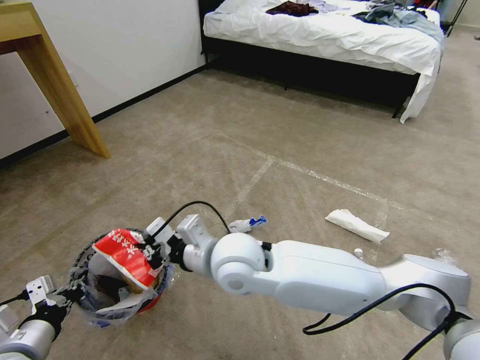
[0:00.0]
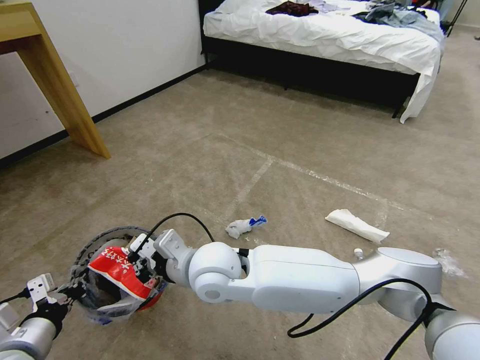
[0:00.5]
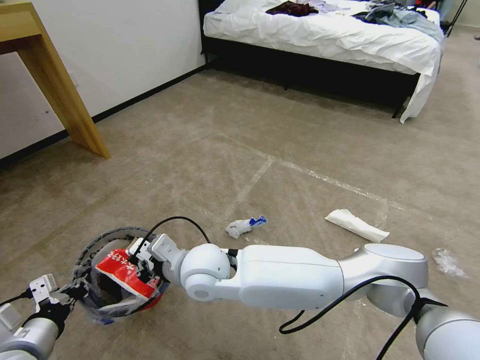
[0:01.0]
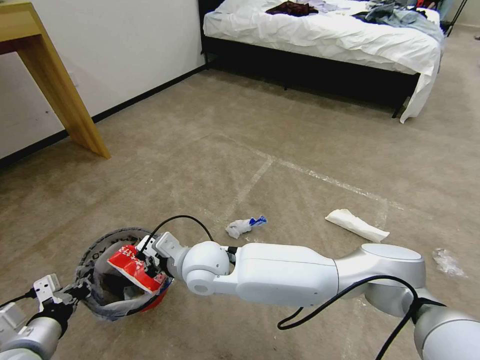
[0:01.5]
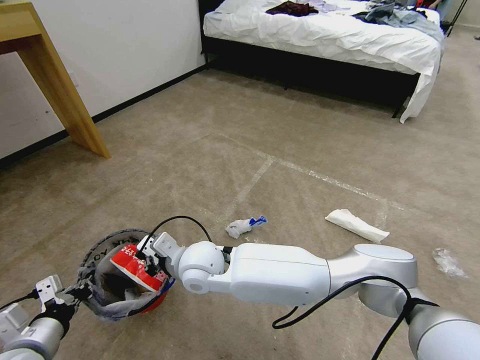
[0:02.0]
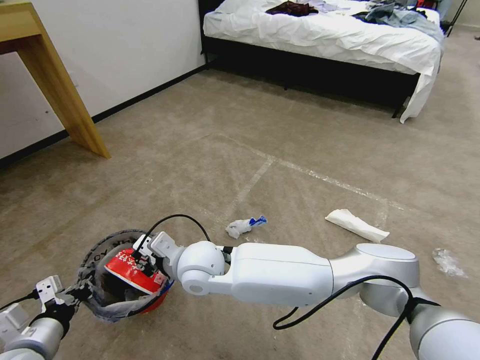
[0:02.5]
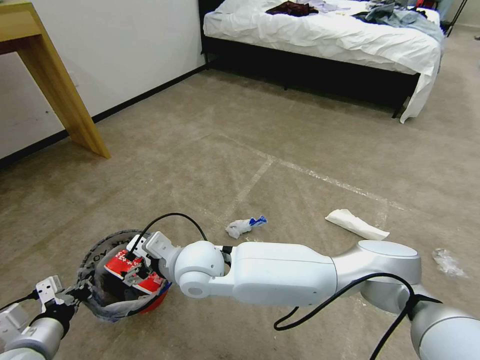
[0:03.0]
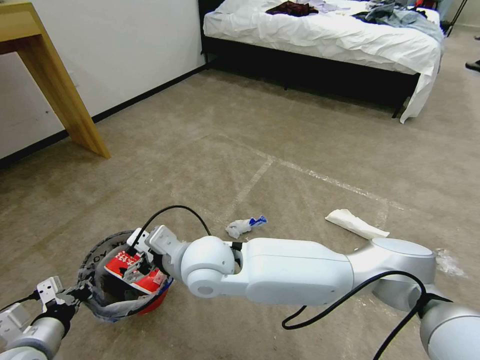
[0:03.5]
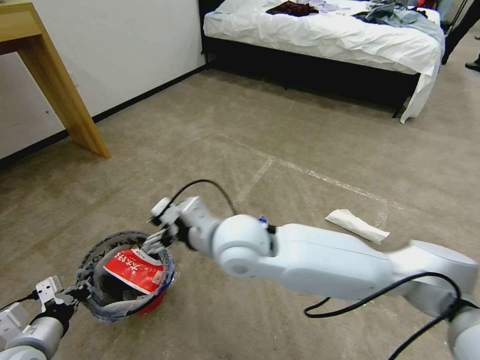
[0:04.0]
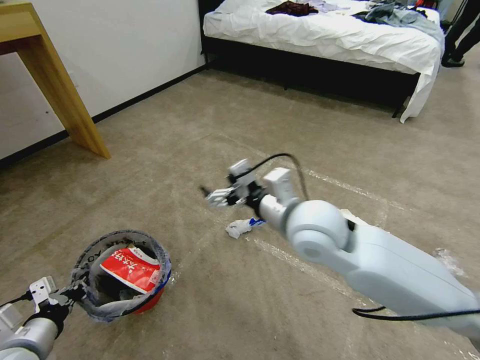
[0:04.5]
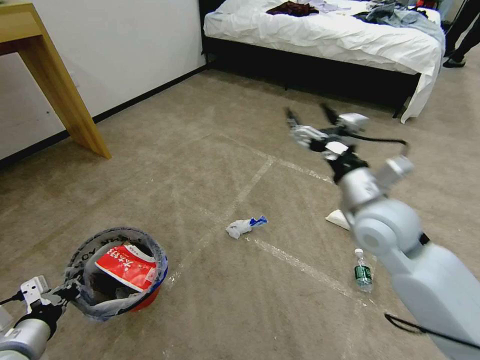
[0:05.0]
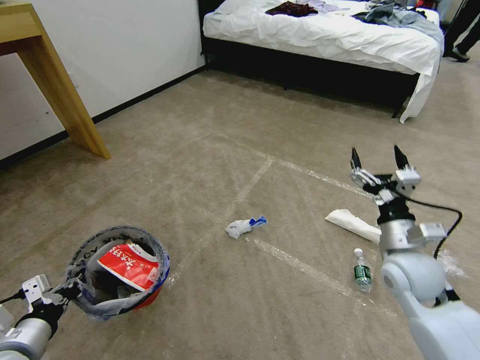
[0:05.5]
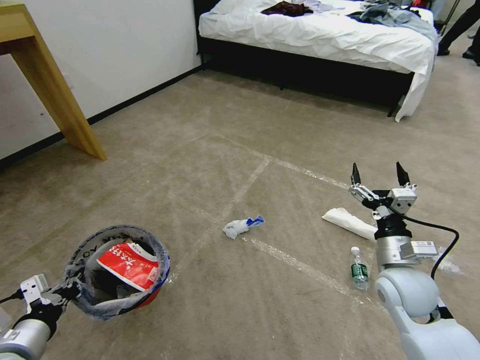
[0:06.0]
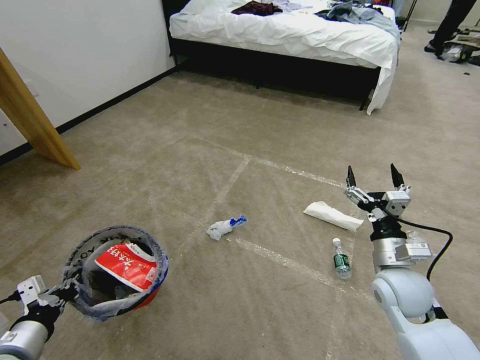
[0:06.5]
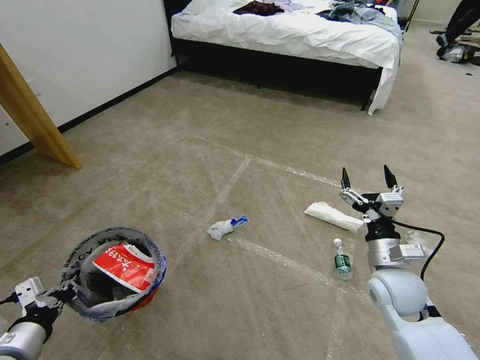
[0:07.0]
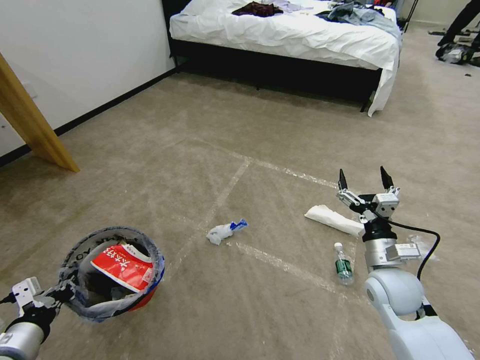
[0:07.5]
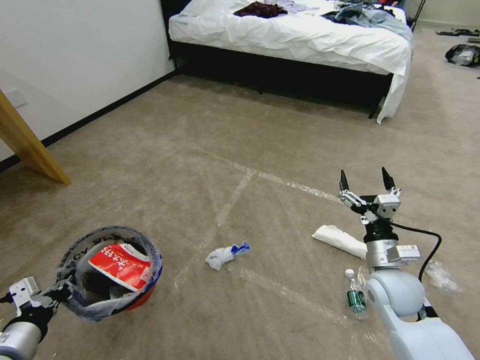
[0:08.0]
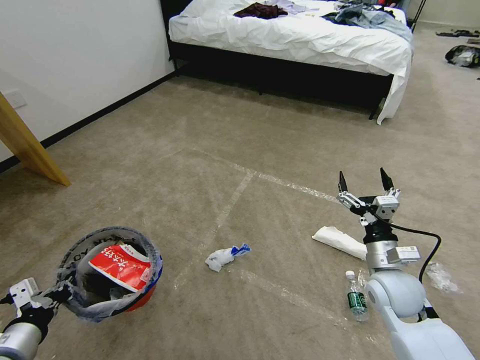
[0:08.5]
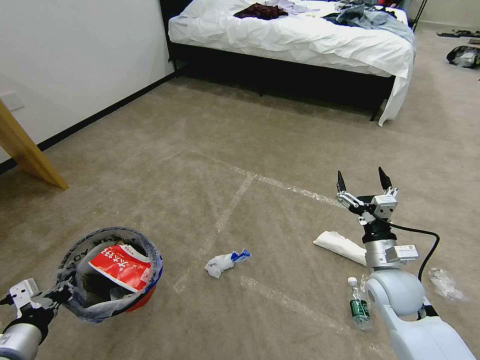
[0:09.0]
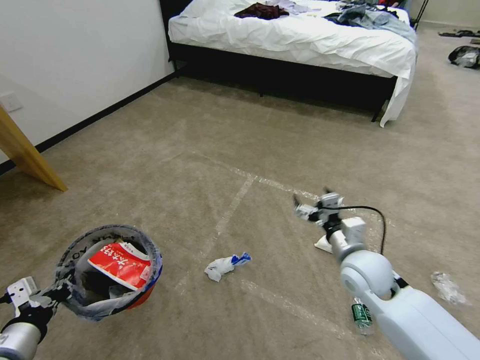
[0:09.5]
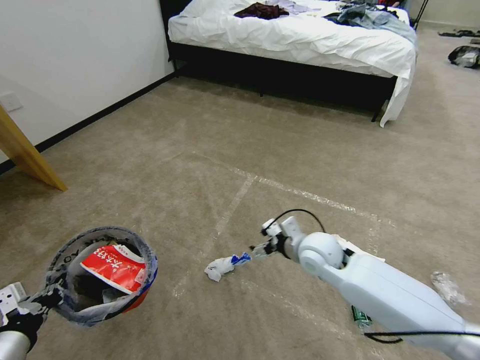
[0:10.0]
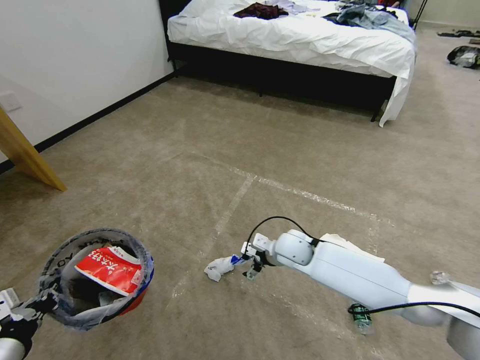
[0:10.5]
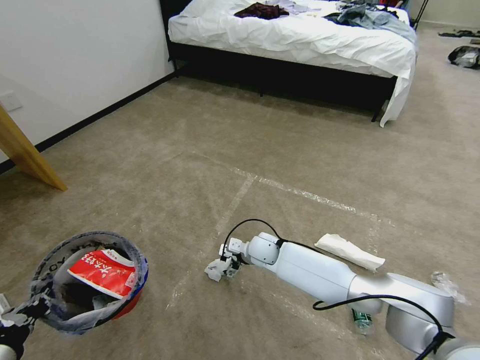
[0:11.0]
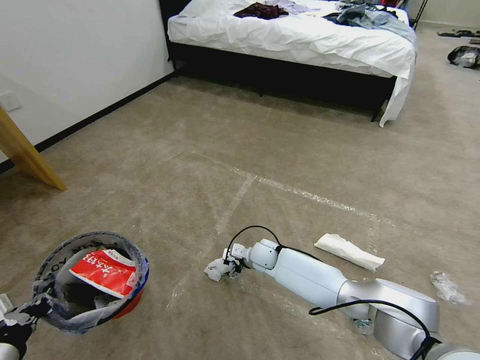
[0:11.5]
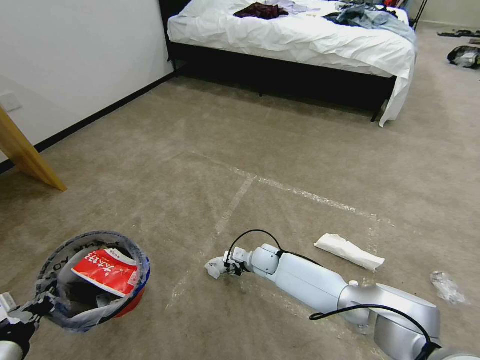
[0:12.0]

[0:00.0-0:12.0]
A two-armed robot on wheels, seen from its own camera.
Task of the whole recording: Pick up the trash bin and place the garbage on the floor into it.
0:00.0 to 0:02.0: The right gripper heads downward and to the left, covering approximately 10 cm.
0:02.0 to 0:04.0: The right gripper is displaced upward and to the right by roughly 15 cm, and opens.
0:04.0 to 0:06.0: The right gripper travels to the right by some 30 cm.
0:08.0 to 0:10.0: The right gripper goes some 15 cm to the left and forward.
0:10.0 to 0:12.0: The right gripper heads downward, to the left and forward, covering roughly 20 cm, and closes its fingers.

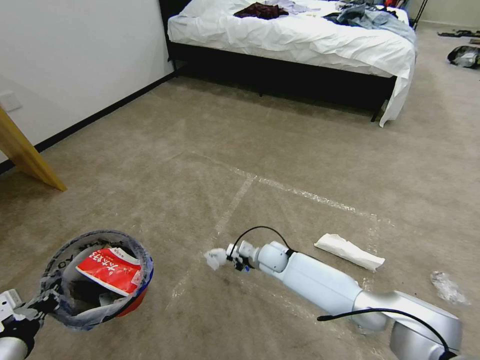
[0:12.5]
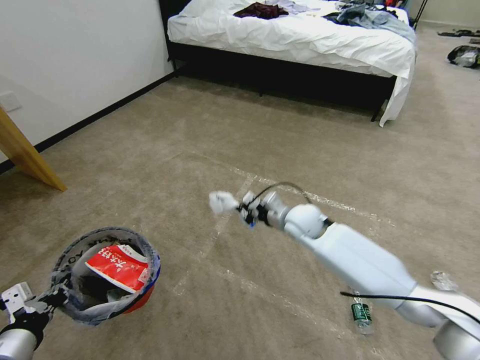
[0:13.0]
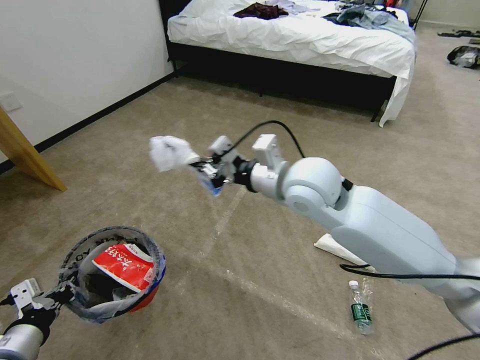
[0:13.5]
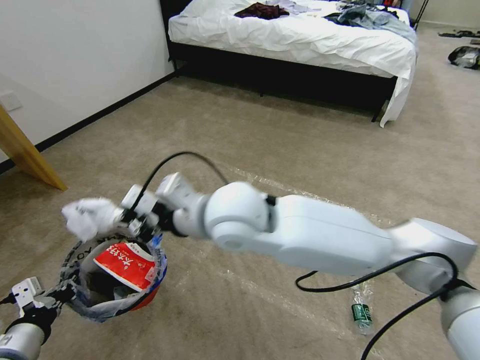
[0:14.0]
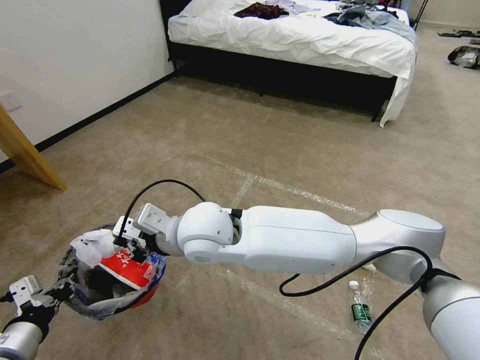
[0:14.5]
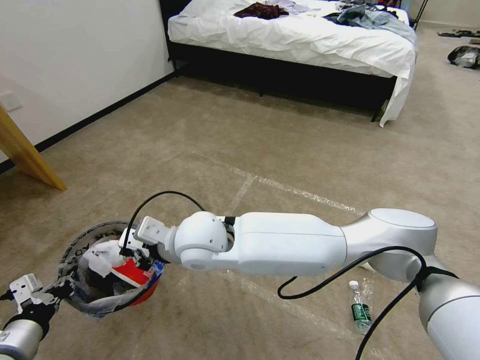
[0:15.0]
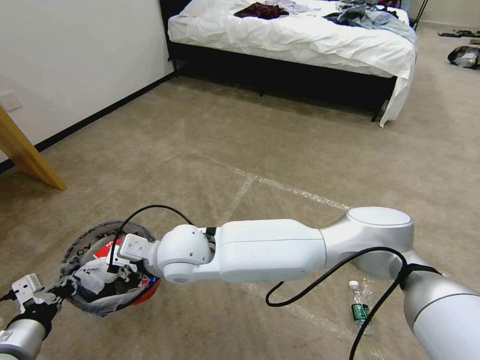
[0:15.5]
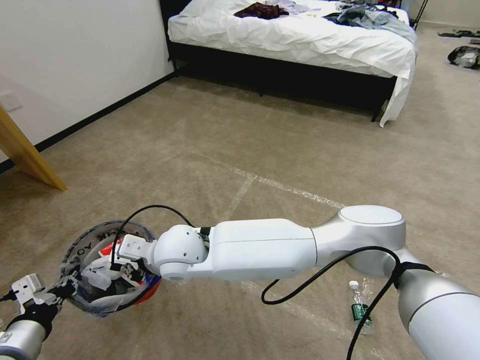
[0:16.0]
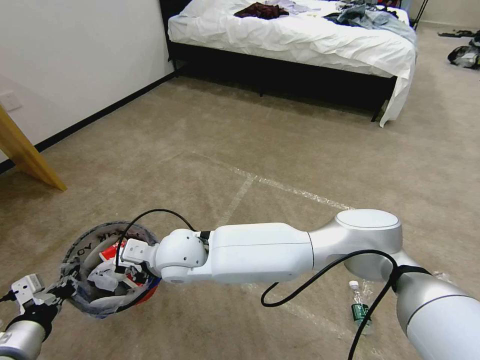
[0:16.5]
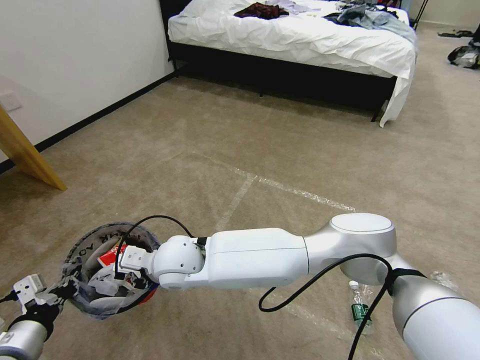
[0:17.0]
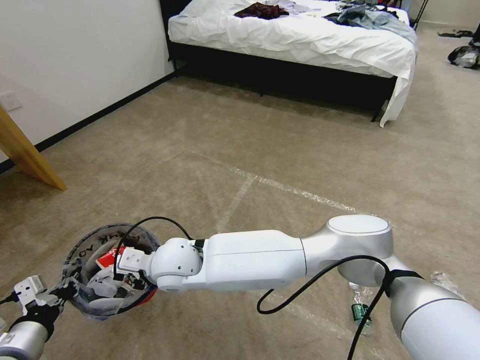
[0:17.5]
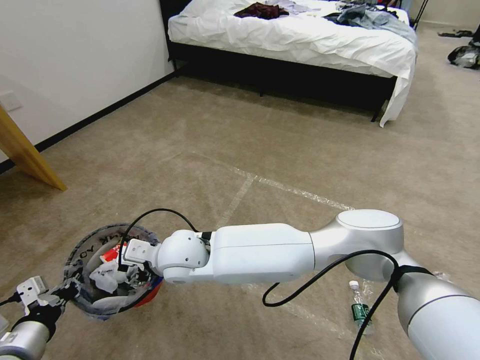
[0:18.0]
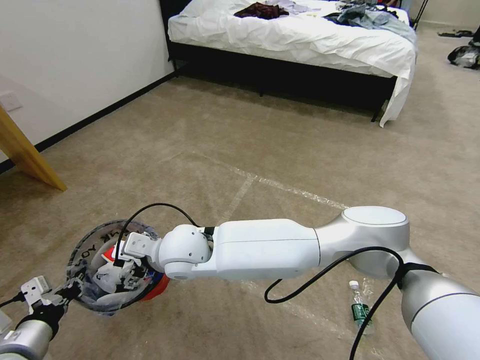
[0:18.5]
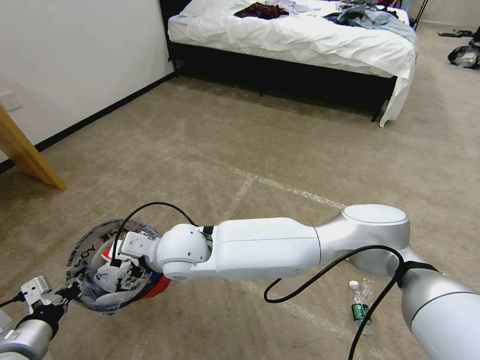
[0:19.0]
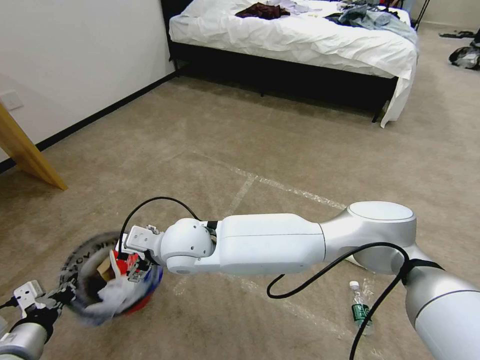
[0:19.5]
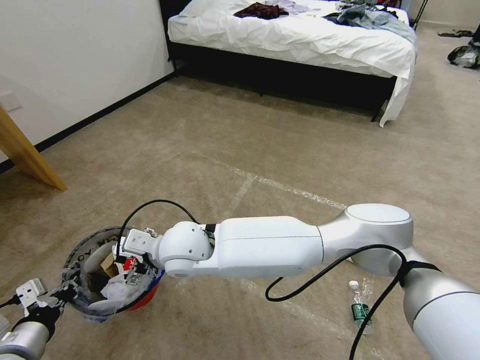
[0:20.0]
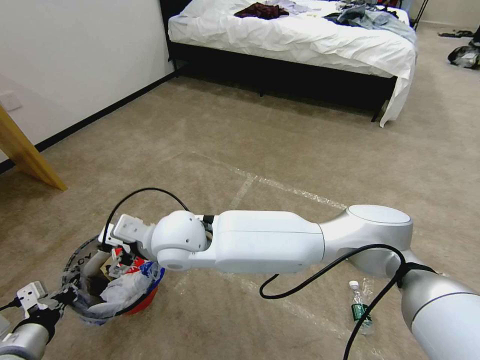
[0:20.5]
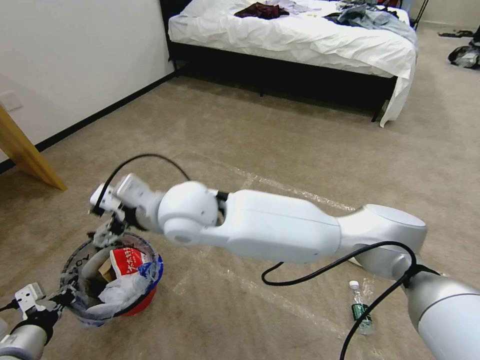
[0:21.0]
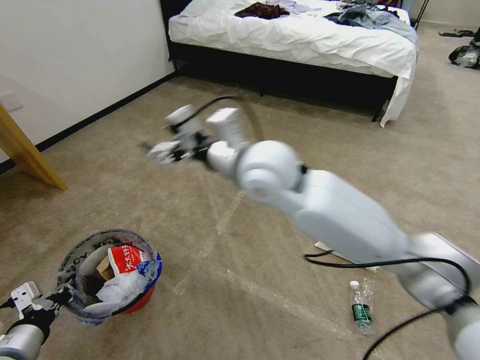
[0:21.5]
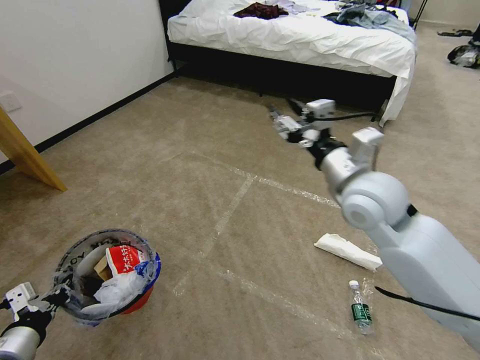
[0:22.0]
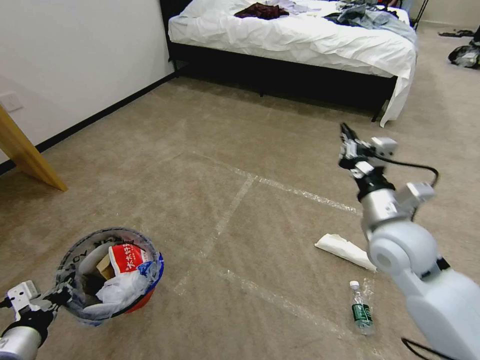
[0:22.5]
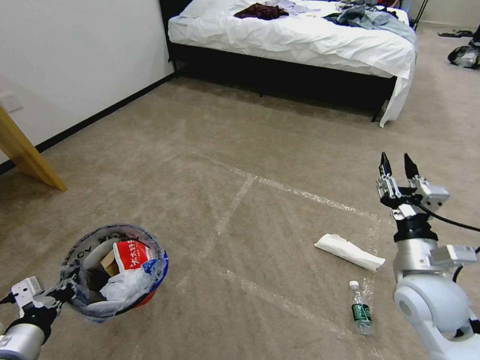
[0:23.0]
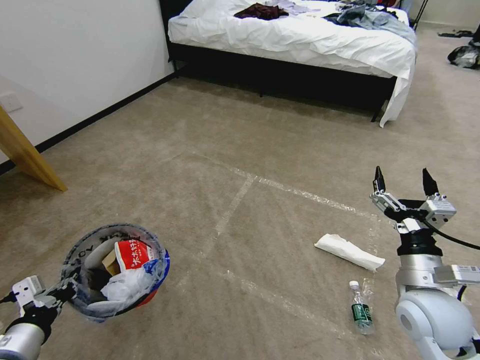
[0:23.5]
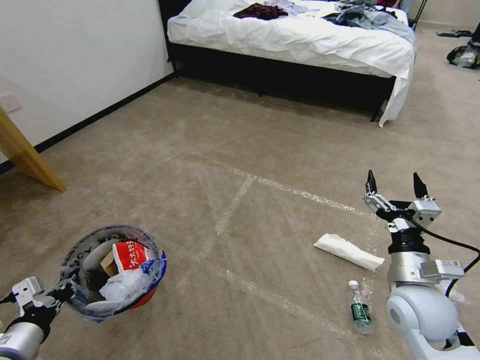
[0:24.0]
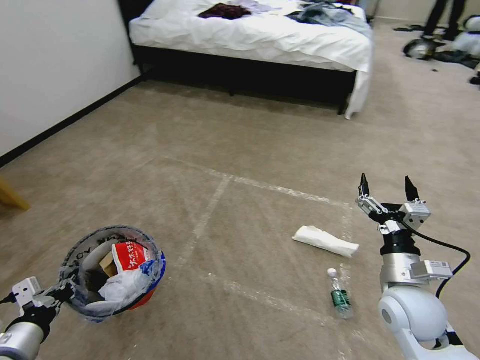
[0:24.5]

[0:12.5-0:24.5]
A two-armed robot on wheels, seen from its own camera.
Task of the whole recording: Pick up the trash bin and place the garbage on the floor into it.
0:12.5 to 0:14.5: The right gripper goes roughly 35 cm upward and to the left.
0:14.5 to 0:16.5: The right gripper moves downward and to the left, about 10 cm.
0:16.5 to 0:18.5: The right gripper opens.
0:18.5 to 0:20.5: The grippers make only small movements.
0:20.5 to 0:22.5: The right gripper heads to the right, covering some 40 cm, and closes its fingers.
0:22.5 to 0:24.5: The right gripper shifts about 15 cm downward and backward, and opens up.

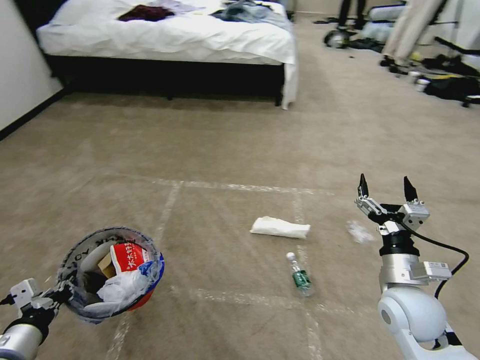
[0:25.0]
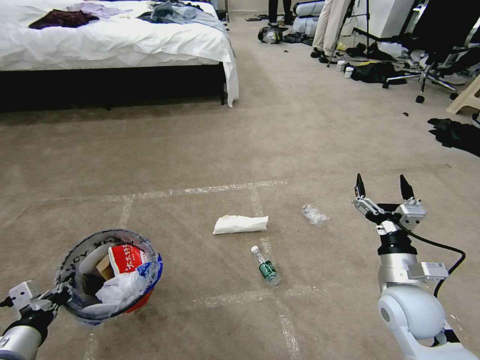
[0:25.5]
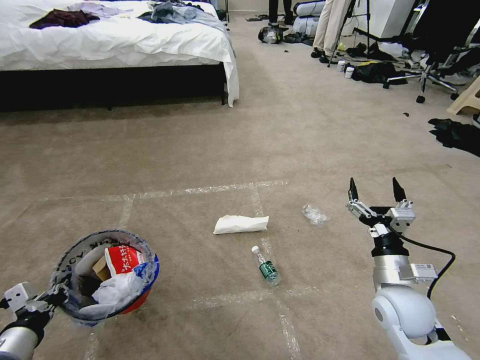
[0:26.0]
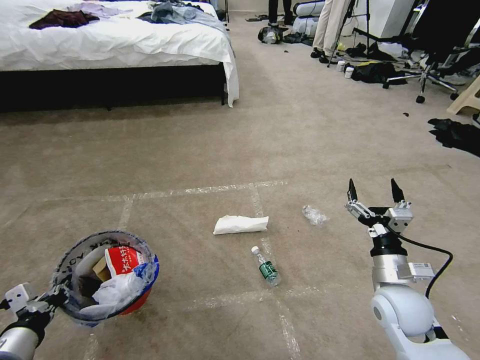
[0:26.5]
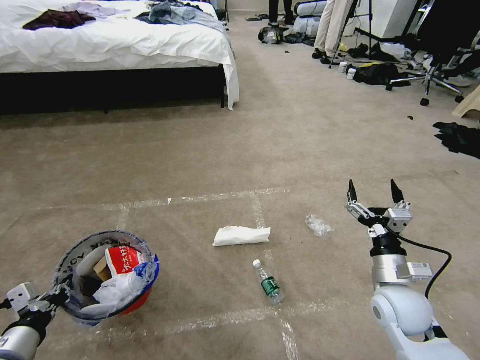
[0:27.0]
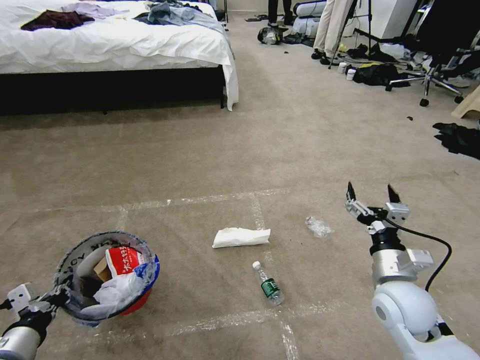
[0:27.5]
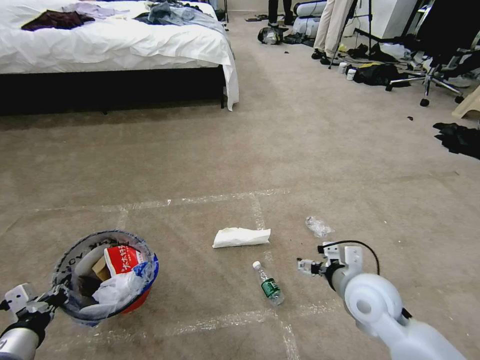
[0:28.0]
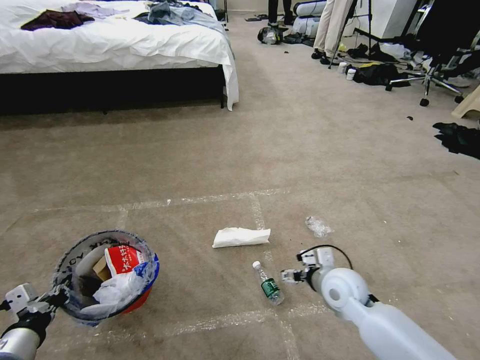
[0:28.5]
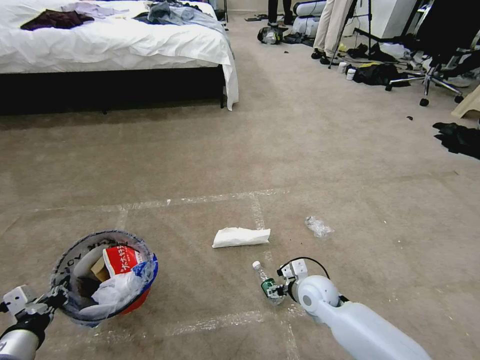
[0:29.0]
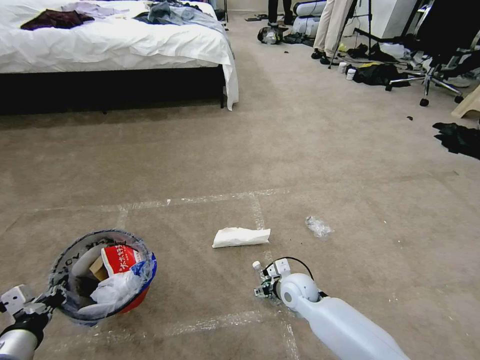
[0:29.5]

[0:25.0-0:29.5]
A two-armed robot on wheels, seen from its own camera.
Task of the whole recording: Pick up the trash bin and place the garbage on the floor into it.
0:27.0 to 0:29.5: The right gripper goes approximately 20 cm to the left, downward and forward.
